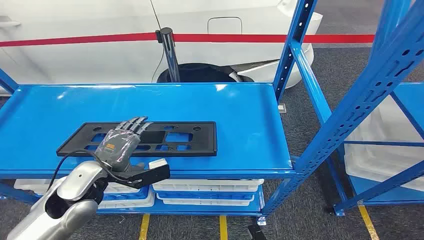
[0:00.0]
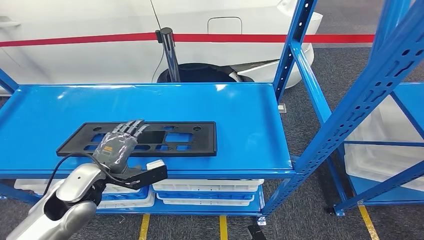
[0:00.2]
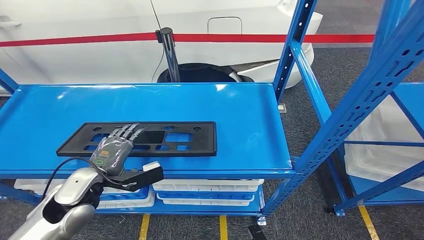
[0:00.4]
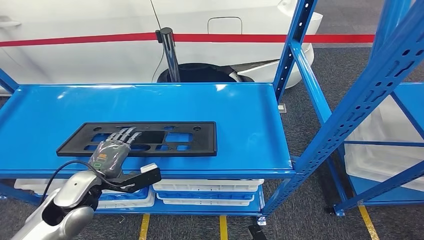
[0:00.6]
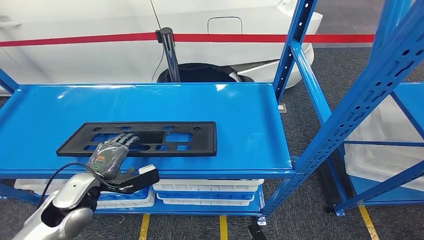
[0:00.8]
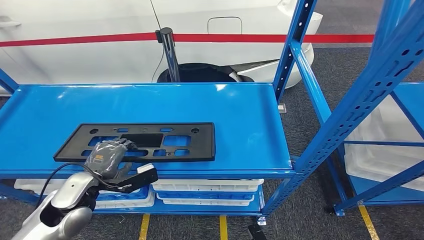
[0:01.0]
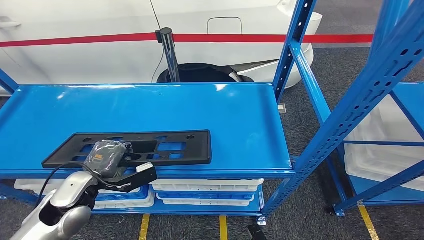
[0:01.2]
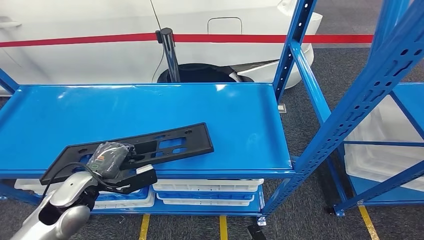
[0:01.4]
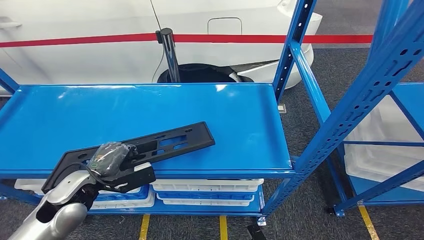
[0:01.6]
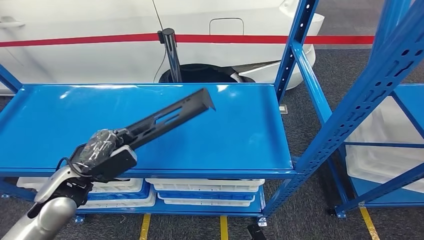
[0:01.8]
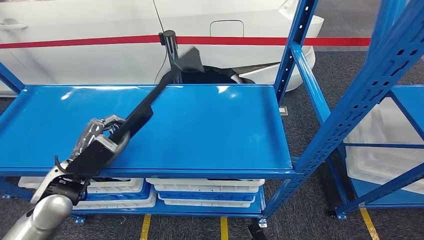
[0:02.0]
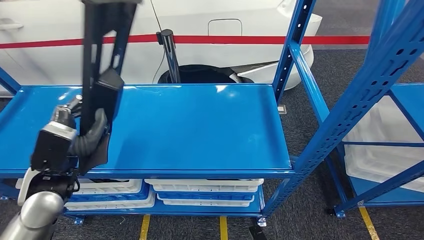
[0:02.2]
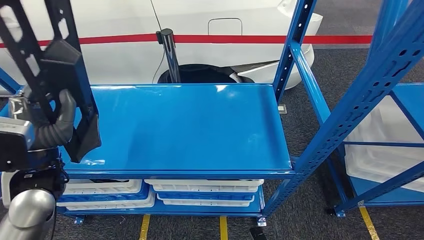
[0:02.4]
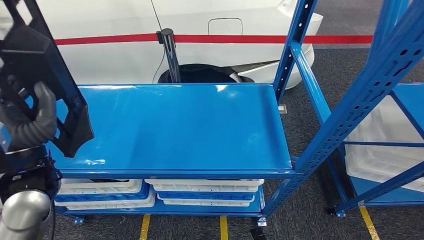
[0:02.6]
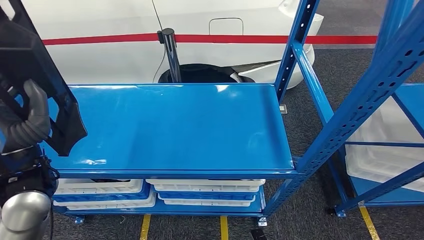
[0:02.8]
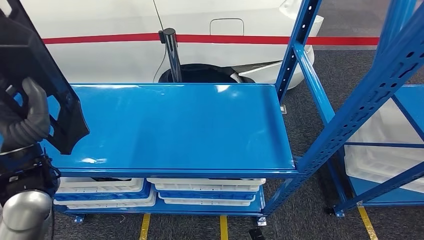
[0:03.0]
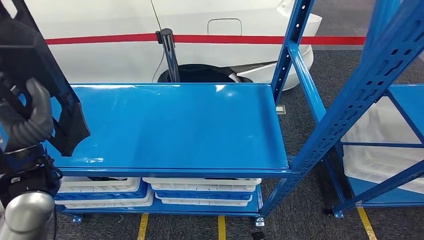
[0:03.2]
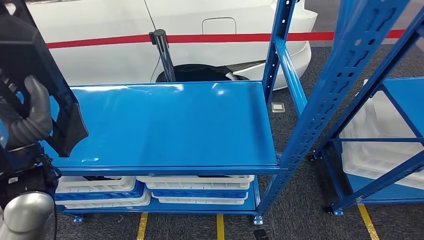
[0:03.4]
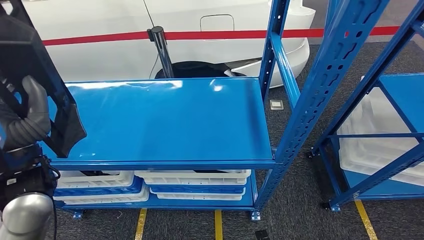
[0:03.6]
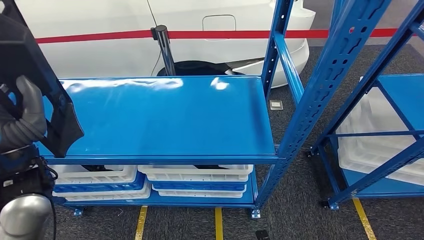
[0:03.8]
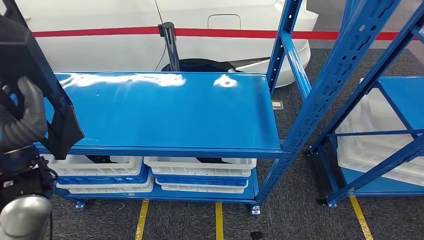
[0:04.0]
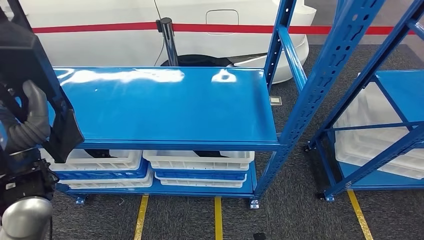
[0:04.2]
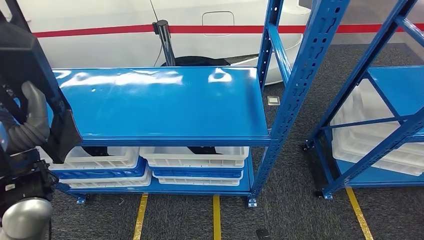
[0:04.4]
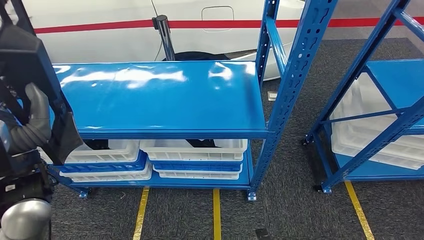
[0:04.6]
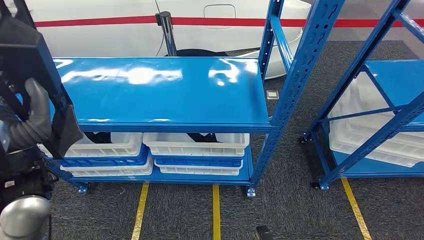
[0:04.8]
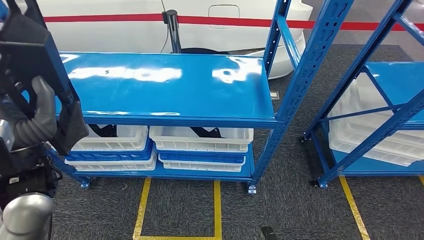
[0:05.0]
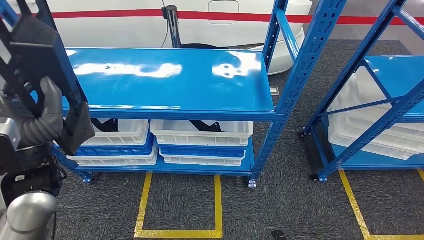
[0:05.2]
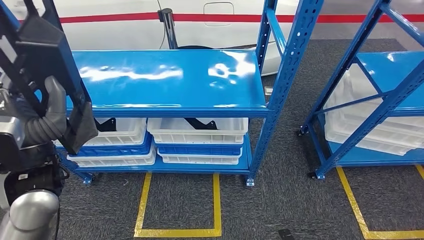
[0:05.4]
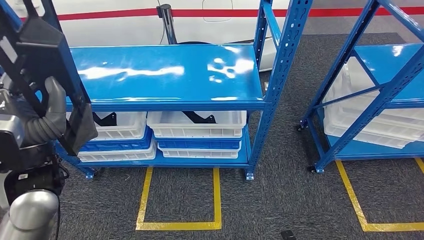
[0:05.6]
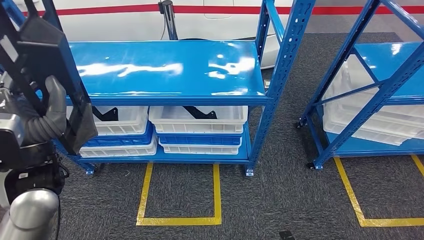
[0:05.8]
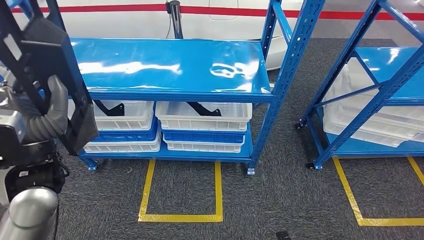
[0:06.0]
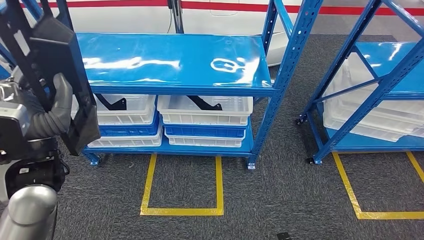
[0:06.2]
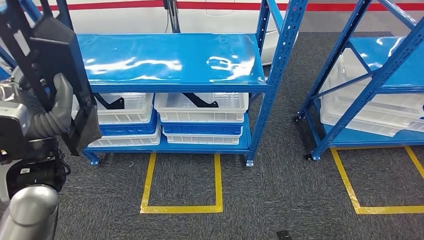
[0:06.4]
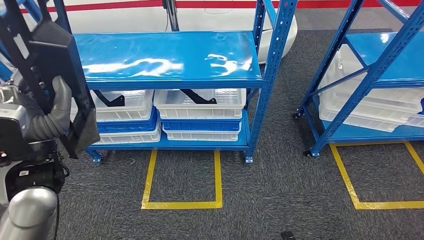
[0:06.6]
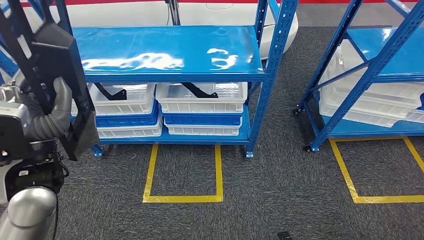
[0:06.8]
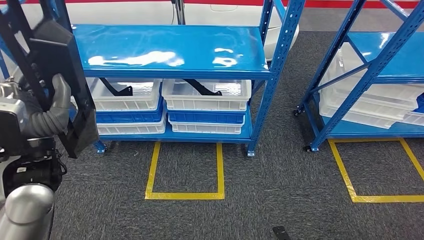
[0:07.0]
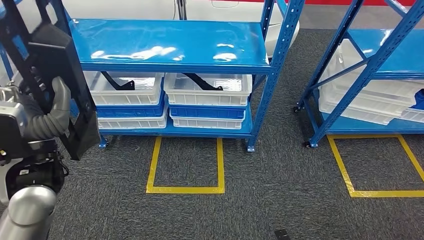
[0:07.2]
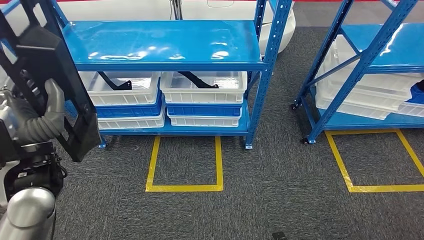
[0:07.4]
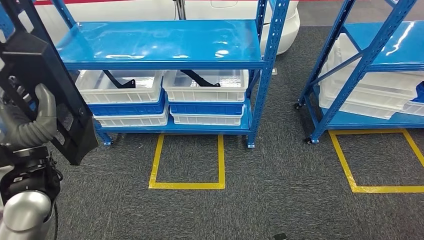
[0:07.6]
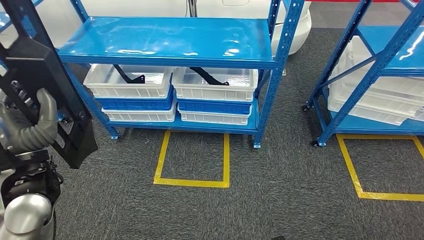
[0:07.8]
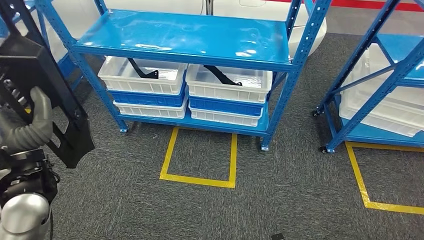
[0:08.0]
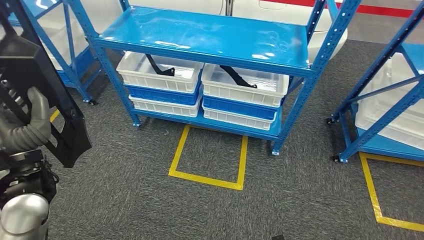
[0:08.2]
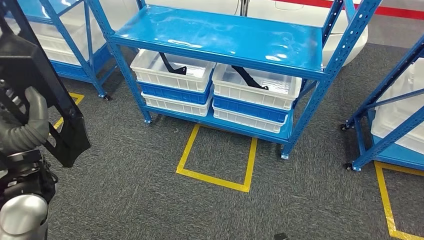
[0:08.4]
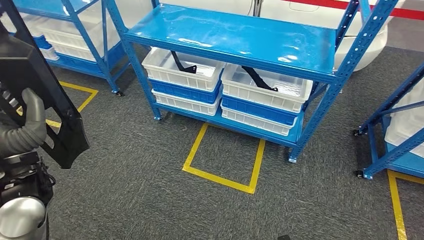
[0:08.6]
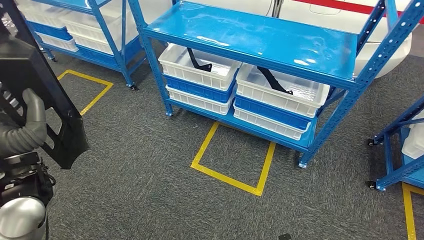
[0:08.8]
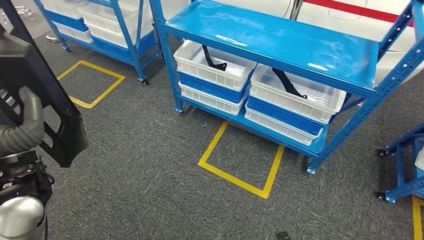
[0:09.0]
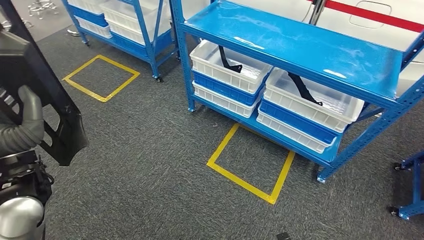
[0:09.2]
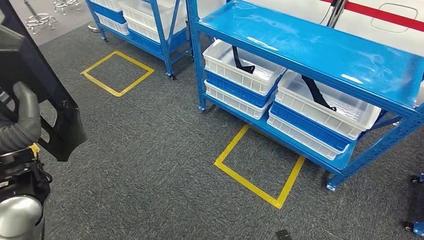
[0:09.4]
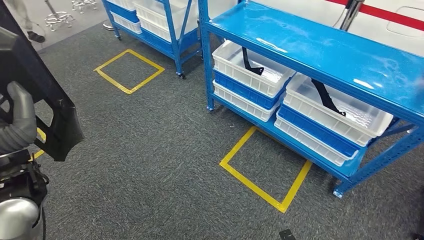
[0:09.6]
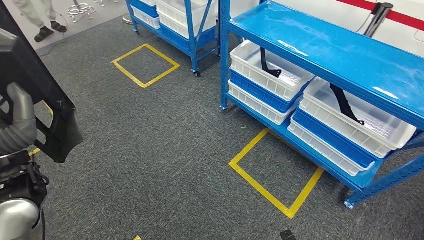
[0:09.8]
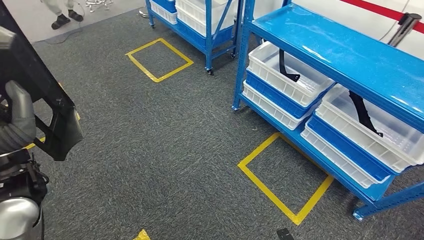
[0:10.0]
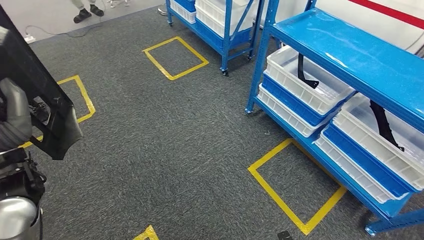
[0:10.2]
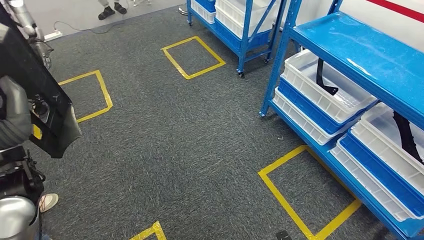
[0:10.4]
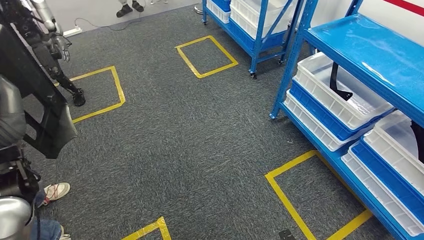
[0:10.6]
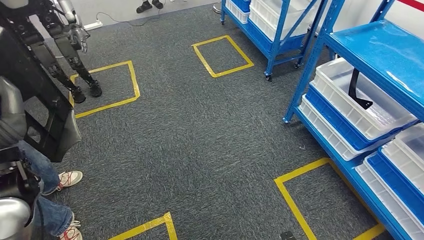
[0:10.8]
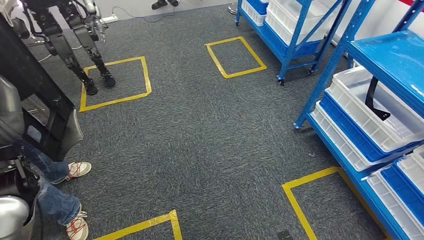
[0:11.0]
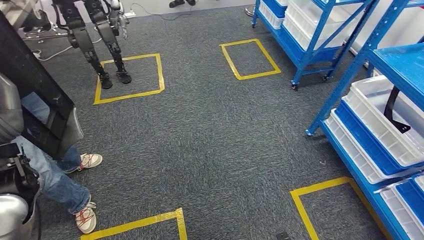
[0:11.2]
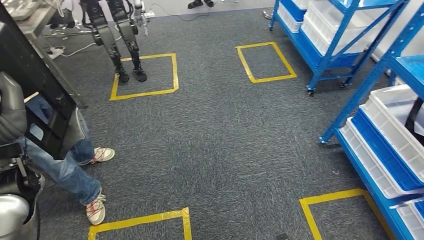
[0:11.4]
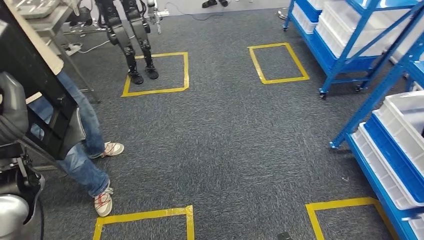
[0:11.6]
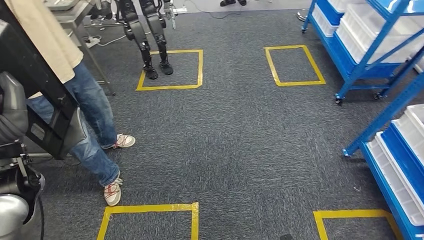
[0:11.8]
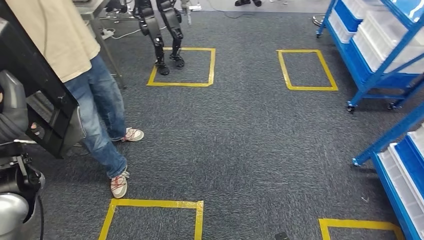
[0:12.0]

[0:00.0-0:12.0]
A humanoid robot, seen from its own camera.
Step, 0:00.0 to 0:05.0: Pick up the large material from the shelf.

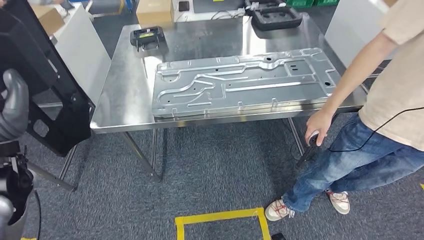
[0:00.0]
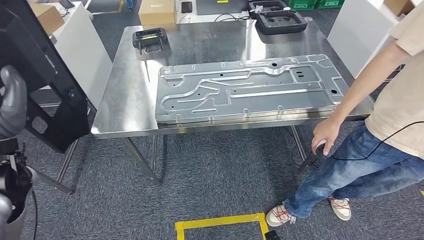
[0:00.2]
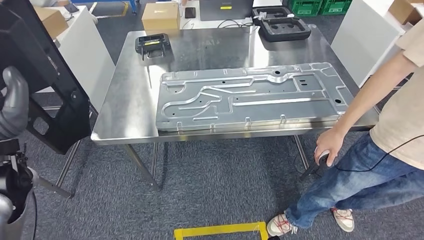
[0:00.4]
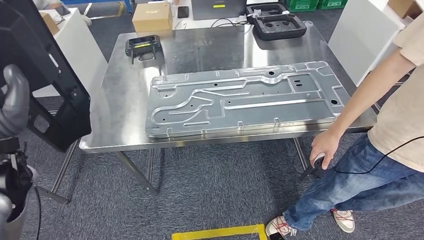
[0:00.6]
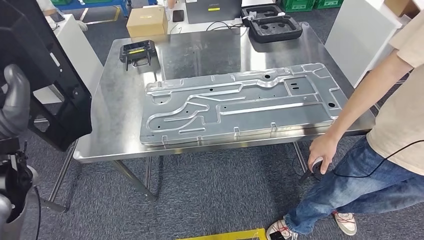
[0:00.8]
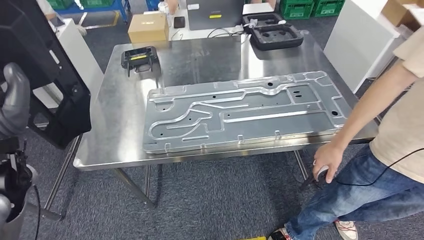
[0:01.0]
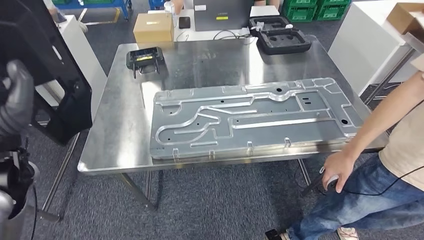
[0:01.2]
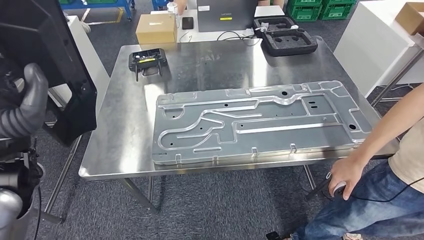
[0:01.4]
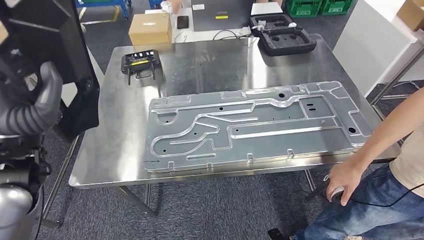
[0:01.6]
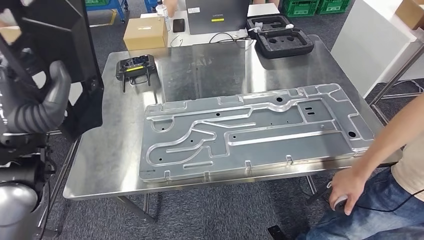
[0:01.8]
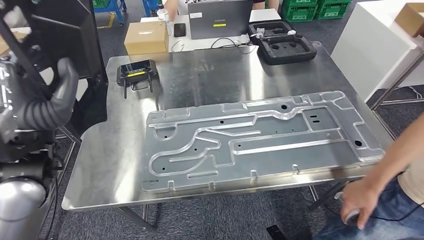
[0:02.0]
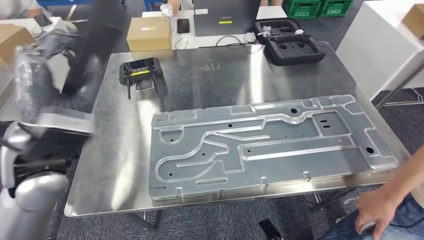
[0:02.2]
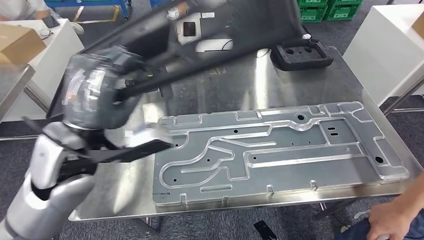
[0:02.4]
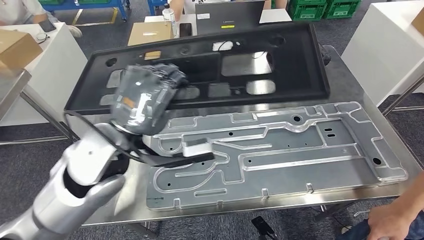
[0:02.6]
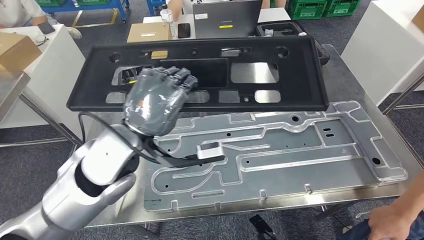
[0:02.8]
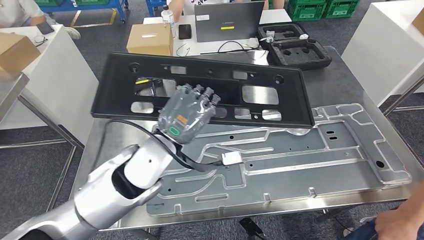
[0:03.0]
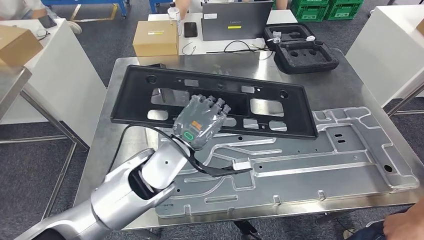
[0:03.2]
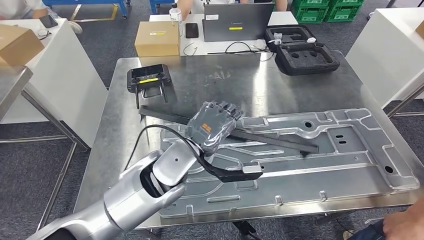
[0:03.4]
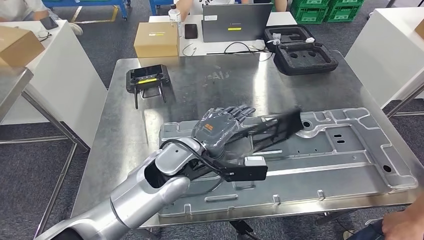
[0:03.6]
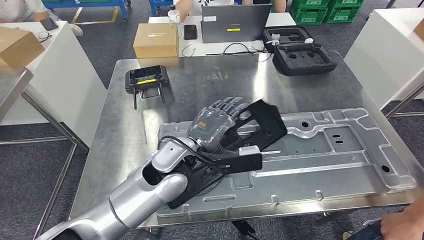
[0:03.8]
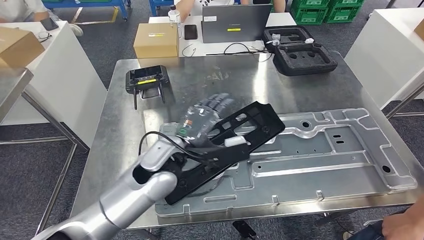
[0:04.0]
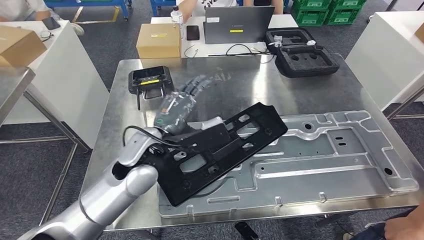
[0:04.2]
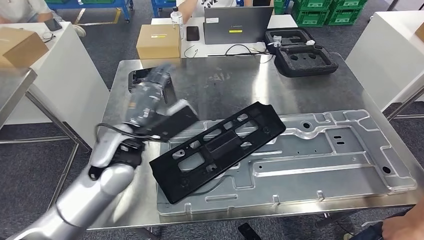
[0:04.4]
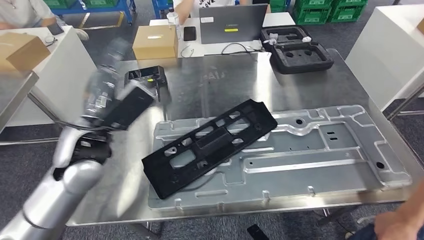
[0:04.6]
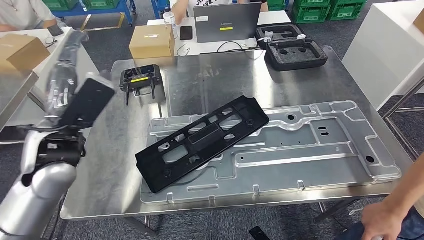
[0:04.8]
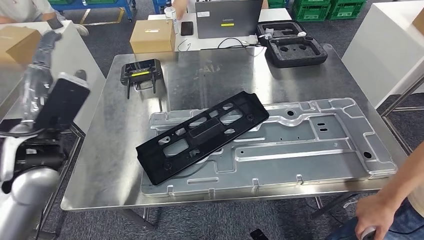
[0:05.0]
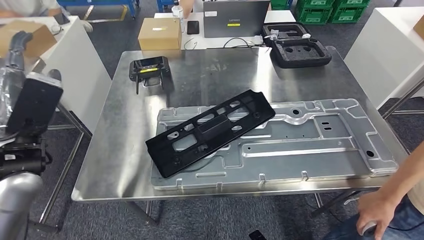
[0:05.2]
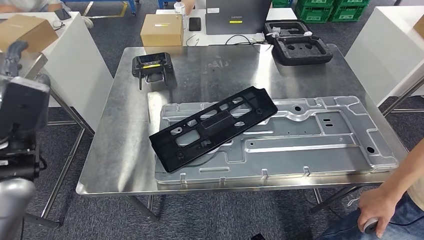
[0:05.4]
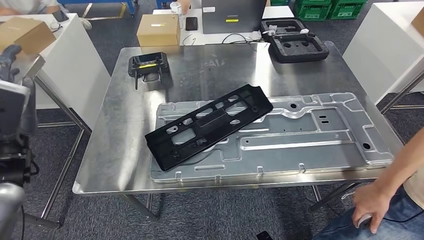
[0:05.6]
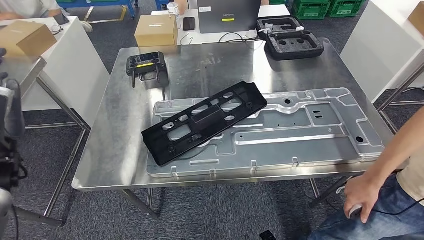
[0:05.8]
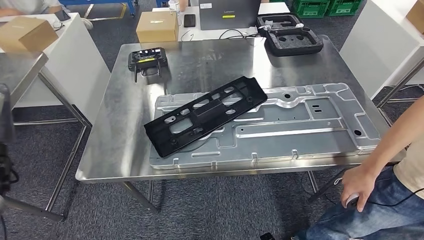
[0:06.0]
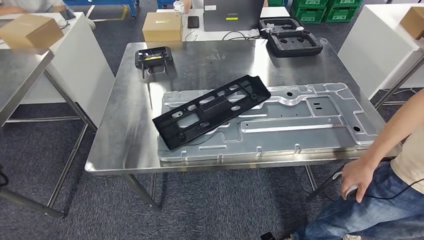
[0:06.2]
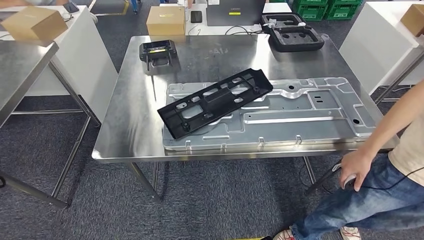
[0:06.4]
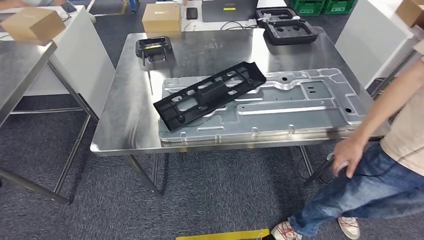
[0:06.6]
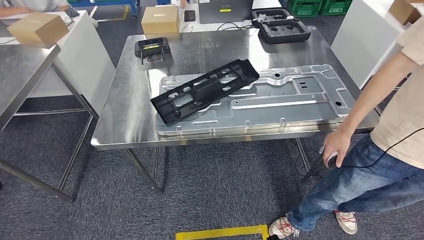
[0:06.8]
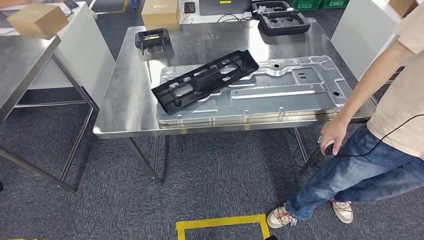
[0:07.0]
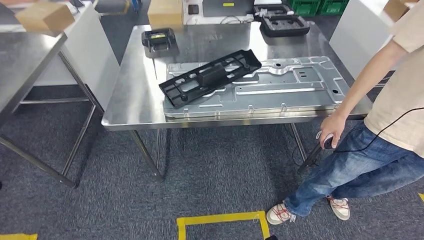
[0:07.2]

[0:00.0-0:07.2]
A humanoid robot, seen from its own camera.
Step, 0:01.0 to 0:05.2: Insert the large material into the corresponding slot on the workbench.
